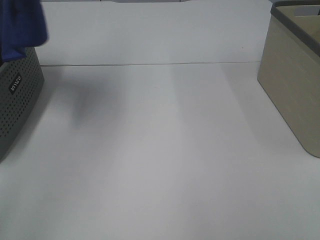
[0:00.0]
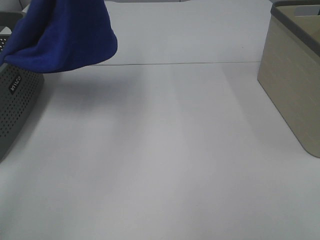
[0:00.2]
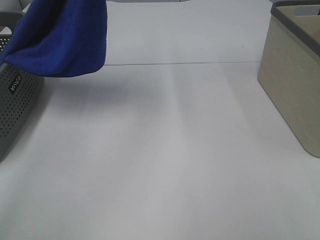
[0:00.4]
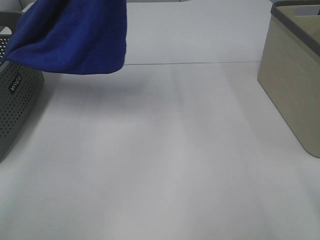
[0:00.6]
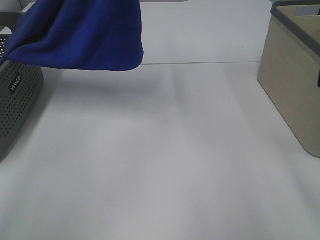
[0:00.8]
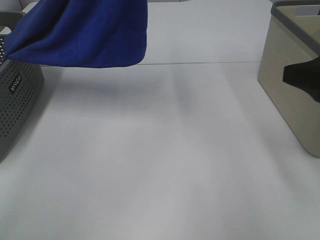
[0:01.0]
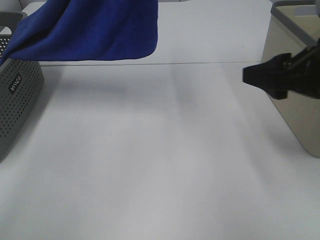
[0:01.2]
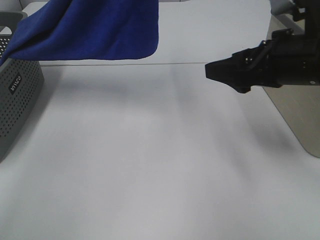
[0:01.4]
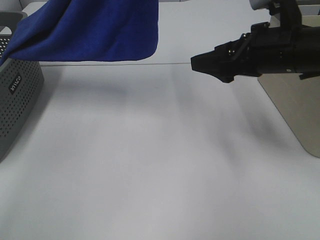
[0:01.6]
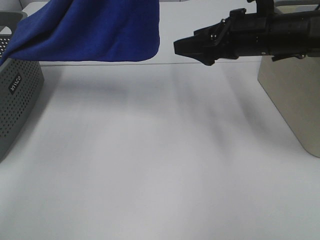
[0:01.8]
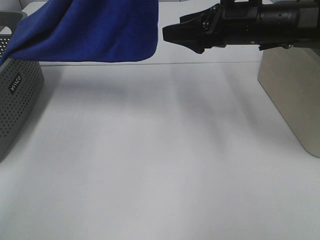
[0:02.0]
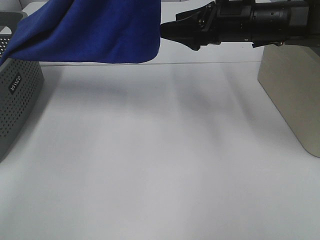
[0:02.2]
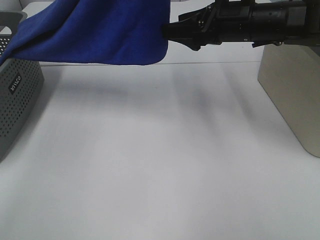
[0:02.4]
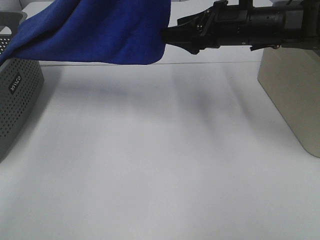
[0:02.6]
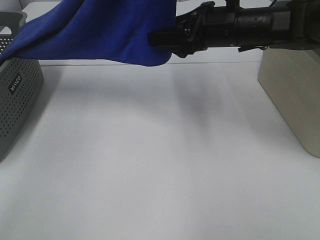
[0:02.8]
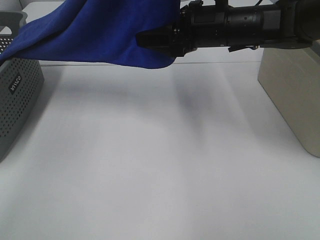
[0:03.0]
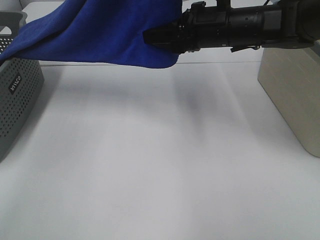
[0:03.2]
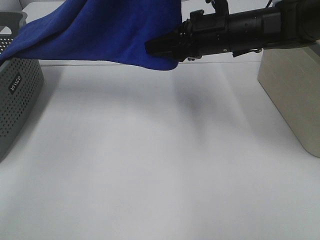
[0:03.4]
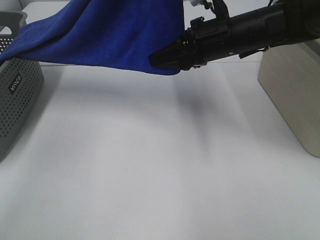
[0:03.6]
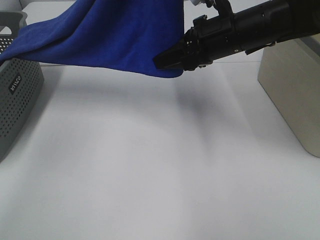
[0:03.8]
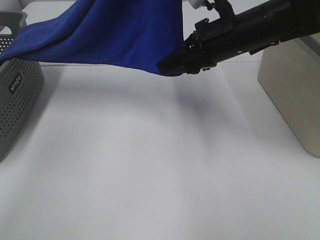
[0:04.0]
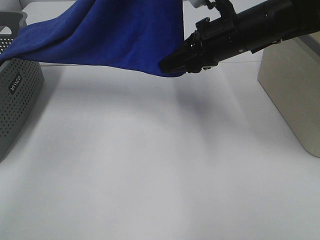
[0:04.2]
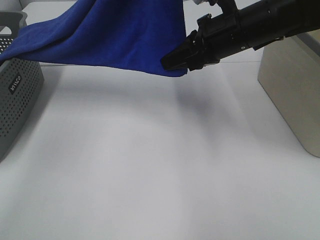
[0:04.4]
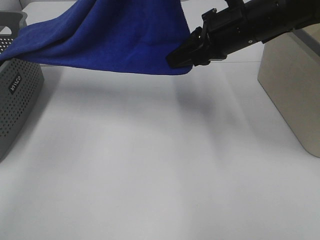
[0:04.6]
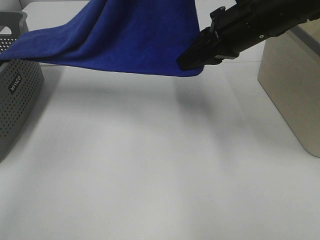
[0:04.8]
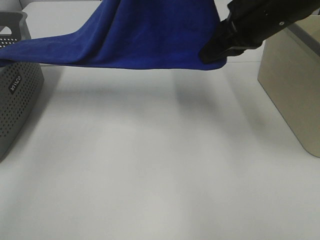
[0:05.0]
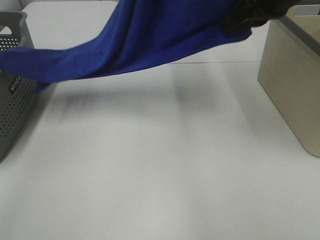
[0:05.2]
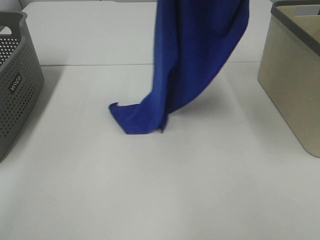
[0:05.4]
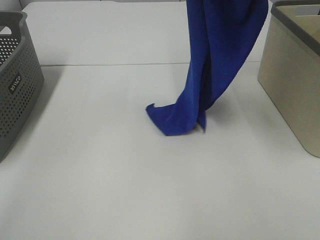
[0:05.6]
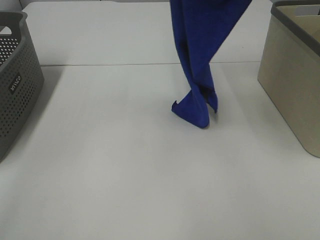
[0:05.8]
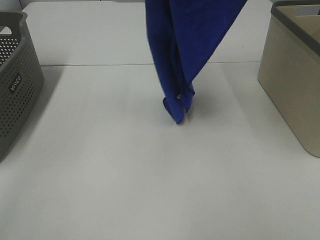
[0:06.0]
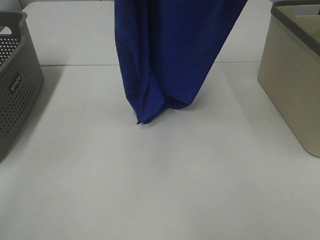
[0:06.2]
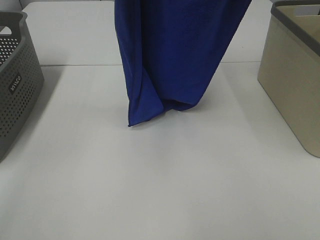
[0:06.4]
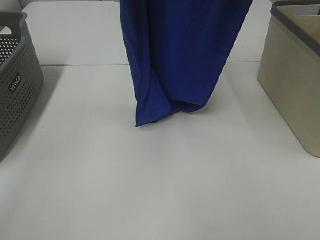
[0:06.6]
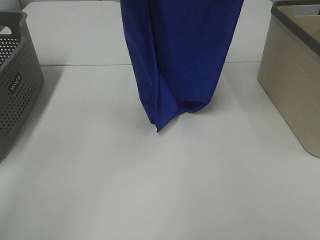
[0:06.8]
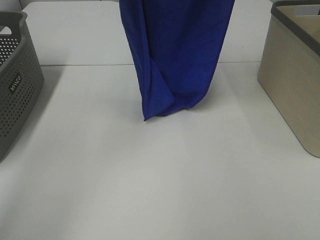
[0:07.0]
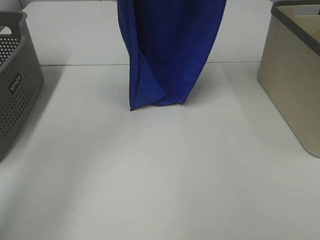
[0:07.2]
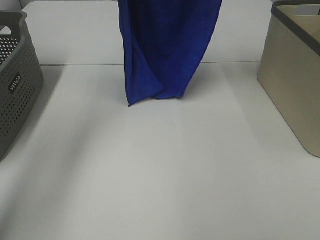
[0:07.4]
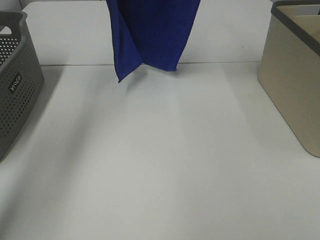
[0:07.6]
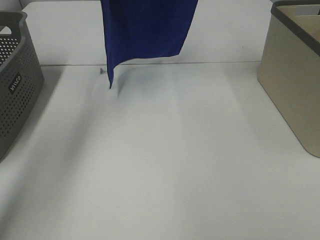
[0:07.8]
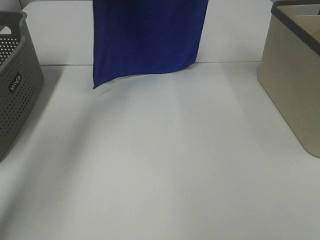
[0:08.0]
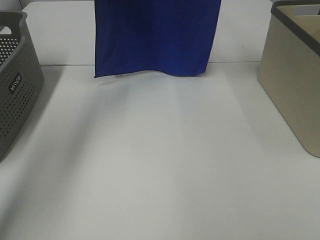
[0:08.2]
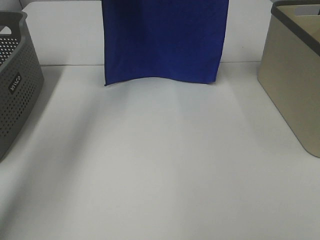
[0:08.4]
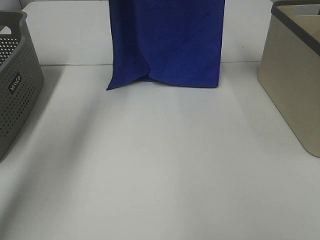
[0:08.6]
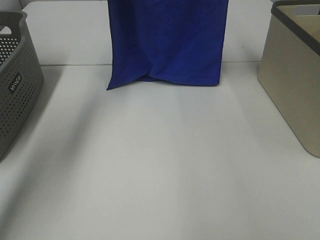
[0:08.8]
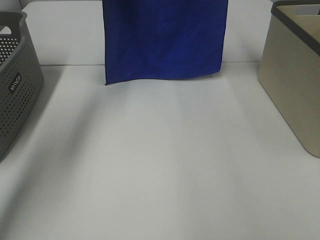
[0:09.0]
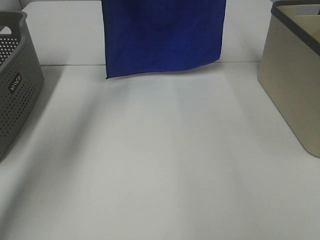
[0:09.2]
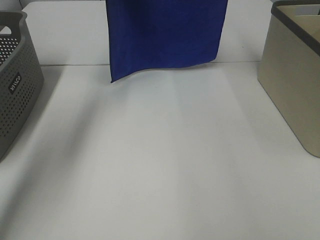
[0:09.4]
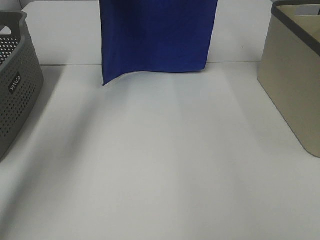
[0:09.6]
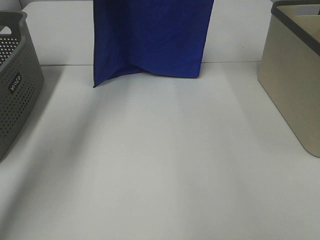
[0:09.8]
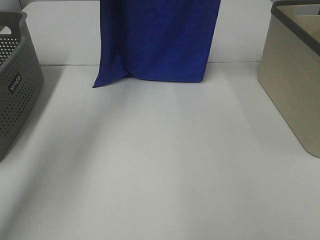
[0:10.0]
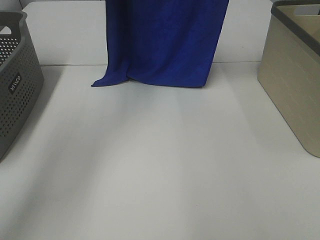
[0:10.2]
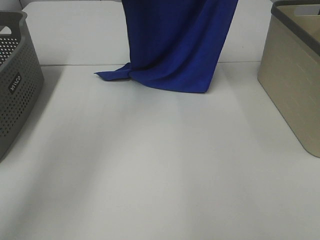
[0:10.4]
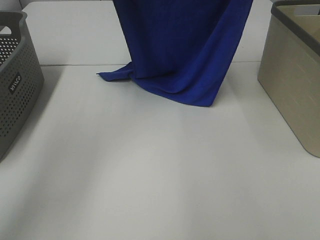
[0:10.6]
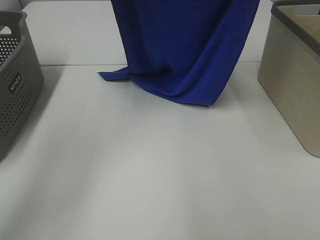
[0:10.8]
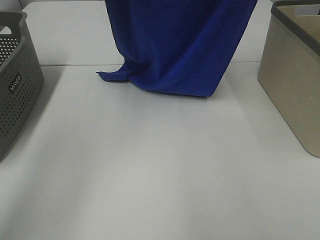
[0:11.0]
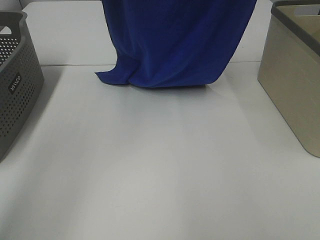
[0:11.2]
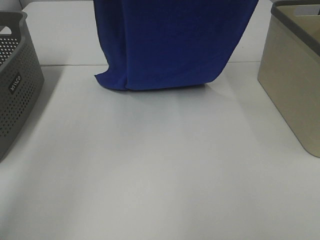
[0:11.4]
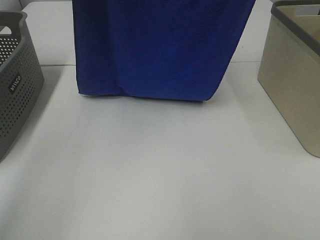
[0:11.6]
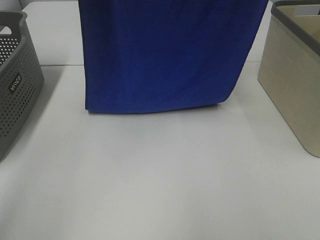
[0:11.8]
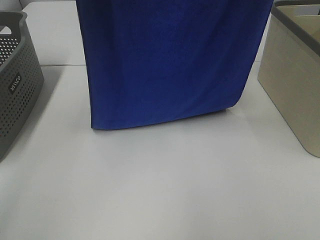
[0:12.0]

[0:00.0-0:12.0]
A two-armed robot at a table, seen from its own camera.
Task of the whole recording: Remove the towel and place it.
Step, 0.0 to 4.4 s: Right hand: grab a corner of the blue towel and straighten it.
Step, 4.6 to 11.4 s: Left hand: spread the blue towel flat on the table.
Step, 4.6 to 11.4 s: Right hand: spread the blue towel flat on the table.
0.0 to 1.6 s: The right gripper is displaced forward by some 30 cm, while the left gripper moves to the right, some 15 cm.
1.6 to 3.0 s: The right gripper travels forward and to the left by approximately 10 cm.
3.0 to 4.4 s: The right gripper closes.
4.4 to 6.0 s: The left gripper heads upward, covering some 5 cm; the right gripper travels upward by some 25 cm.
6.0 to 7.6 s: The left gripper heads forward and to the left, covering about 15 cm. The right gripper travels forward by some 15 cm.
7.6 to 9.0 s: The left gripper goes roughly 5 cm downward.
9.0 to 10.4 s: The left gripper ends up roughly 5 cm from where it was. Meanwhile the right gripper ends up roughly 5 cm from where it was.
10.4 to 12.0 s: The left gripper travels backward and upward by some 20 cm. Meanwhile the right gripper heads backward, covering some 15 cm.

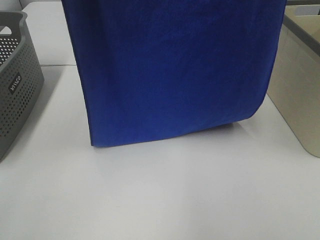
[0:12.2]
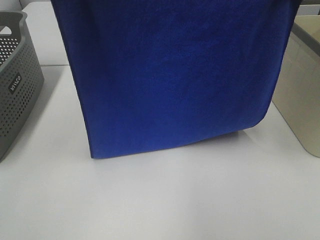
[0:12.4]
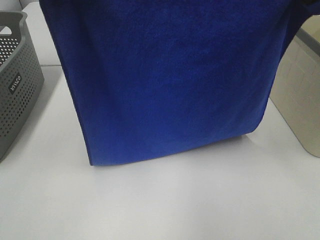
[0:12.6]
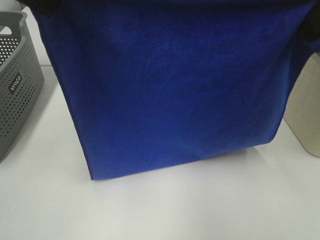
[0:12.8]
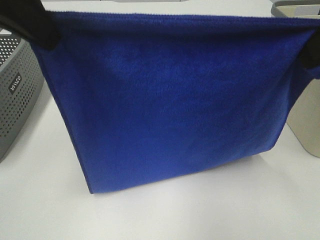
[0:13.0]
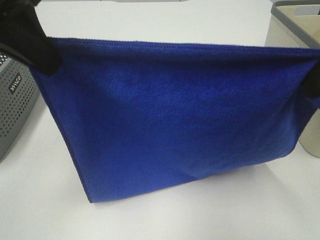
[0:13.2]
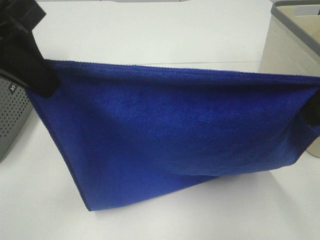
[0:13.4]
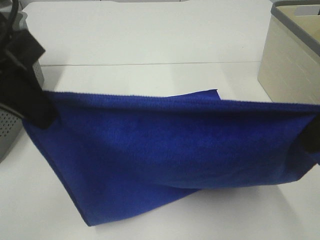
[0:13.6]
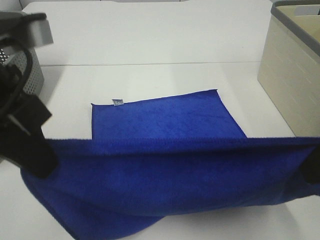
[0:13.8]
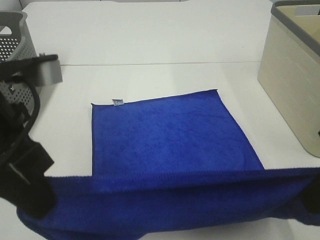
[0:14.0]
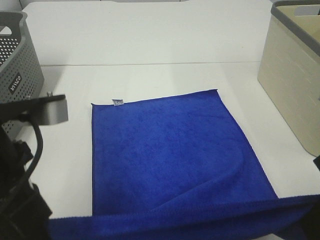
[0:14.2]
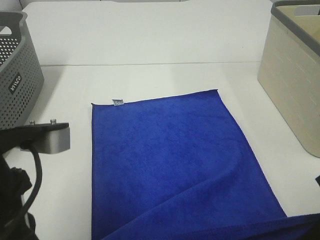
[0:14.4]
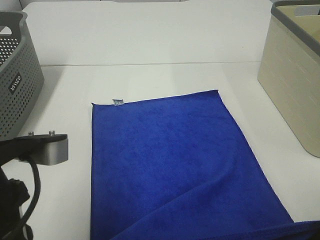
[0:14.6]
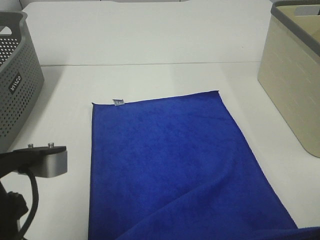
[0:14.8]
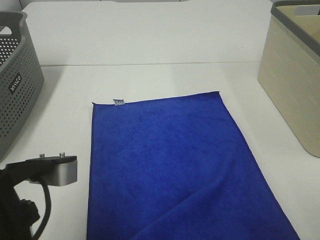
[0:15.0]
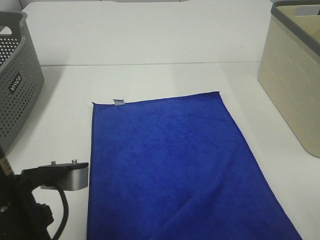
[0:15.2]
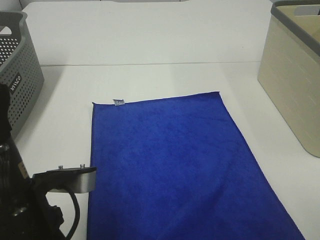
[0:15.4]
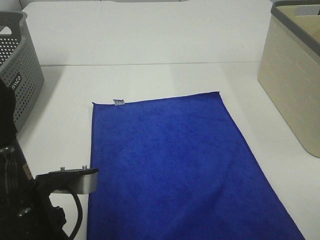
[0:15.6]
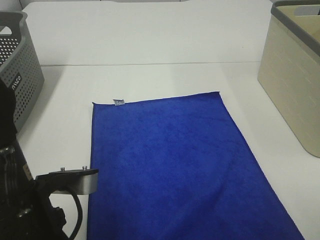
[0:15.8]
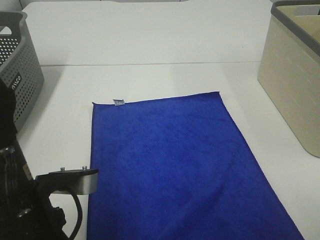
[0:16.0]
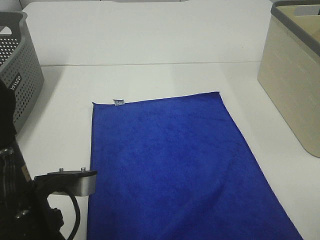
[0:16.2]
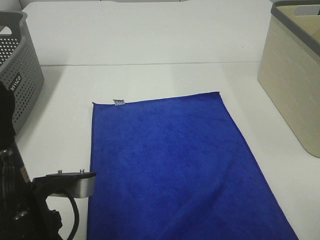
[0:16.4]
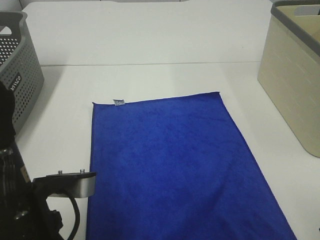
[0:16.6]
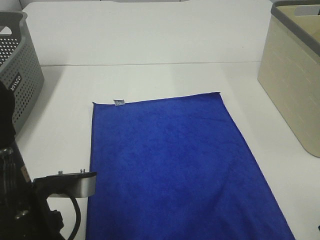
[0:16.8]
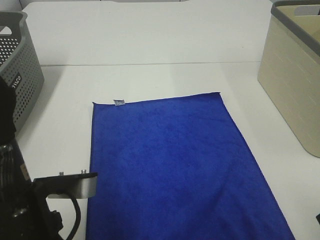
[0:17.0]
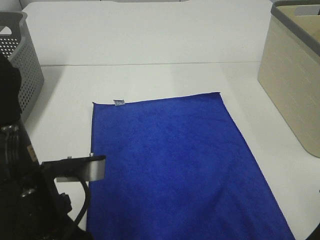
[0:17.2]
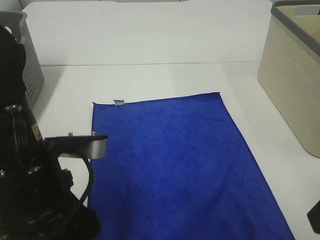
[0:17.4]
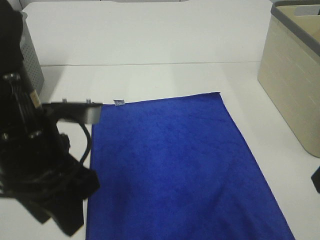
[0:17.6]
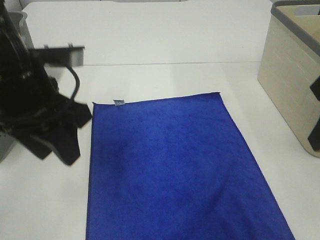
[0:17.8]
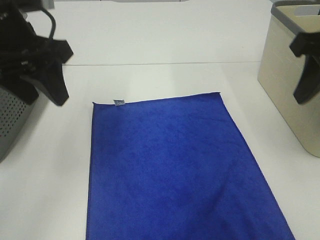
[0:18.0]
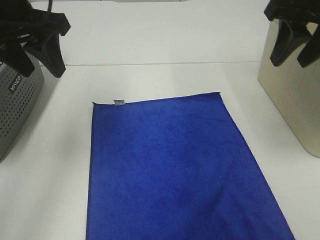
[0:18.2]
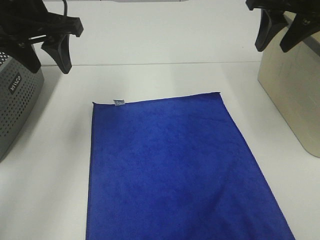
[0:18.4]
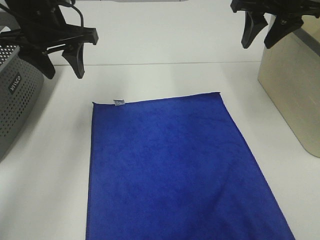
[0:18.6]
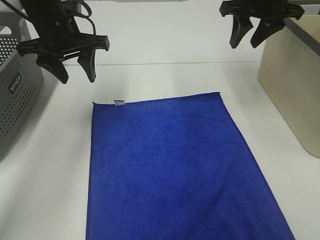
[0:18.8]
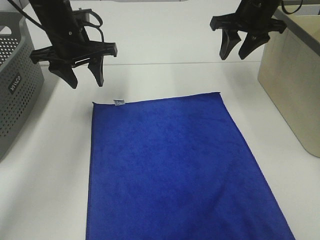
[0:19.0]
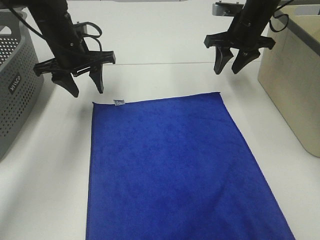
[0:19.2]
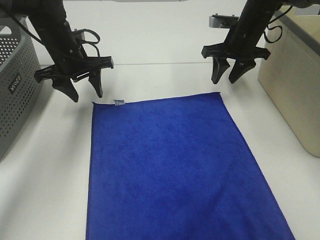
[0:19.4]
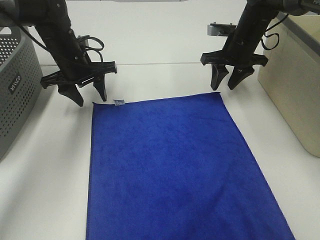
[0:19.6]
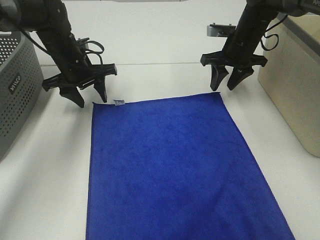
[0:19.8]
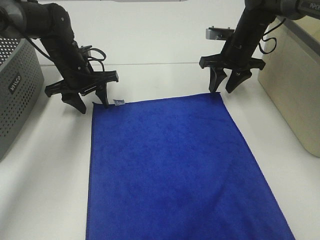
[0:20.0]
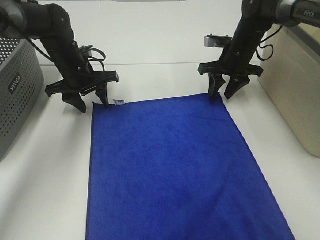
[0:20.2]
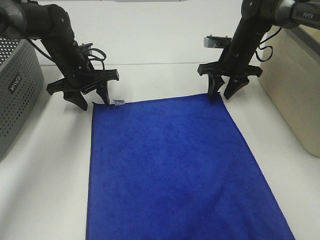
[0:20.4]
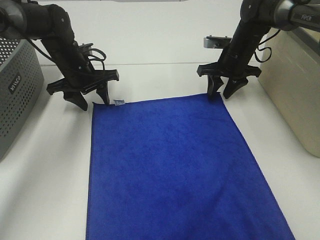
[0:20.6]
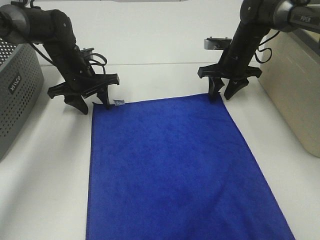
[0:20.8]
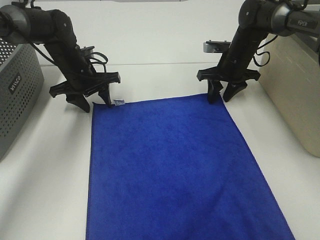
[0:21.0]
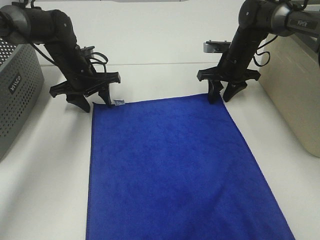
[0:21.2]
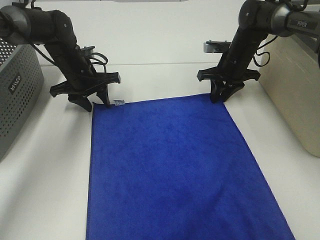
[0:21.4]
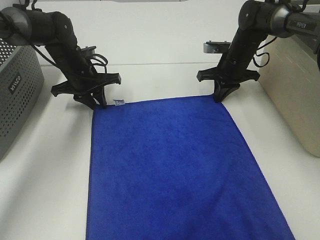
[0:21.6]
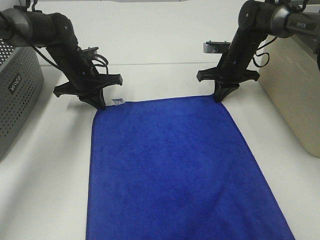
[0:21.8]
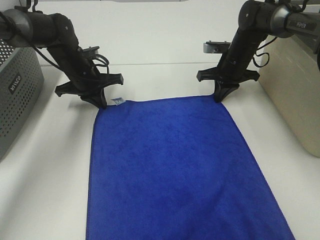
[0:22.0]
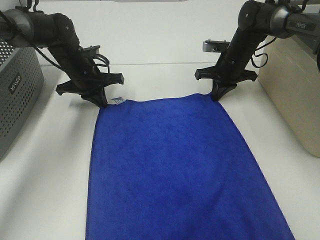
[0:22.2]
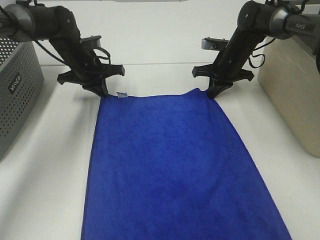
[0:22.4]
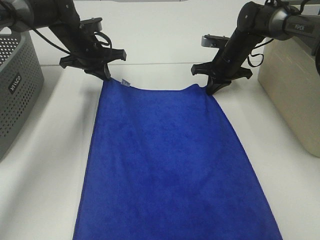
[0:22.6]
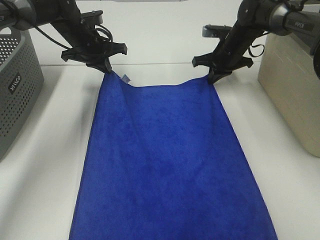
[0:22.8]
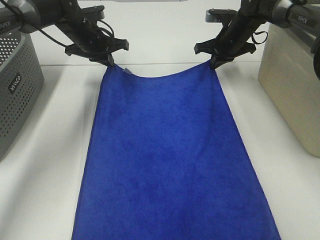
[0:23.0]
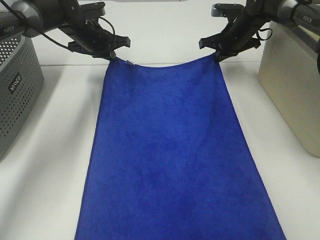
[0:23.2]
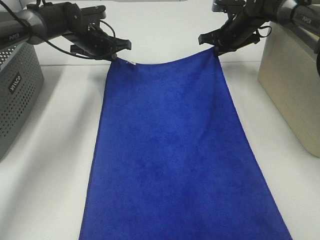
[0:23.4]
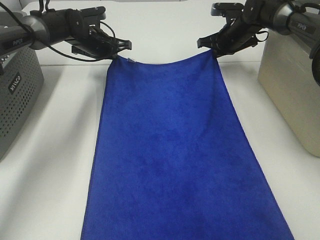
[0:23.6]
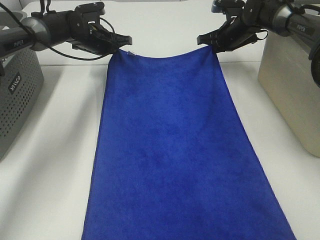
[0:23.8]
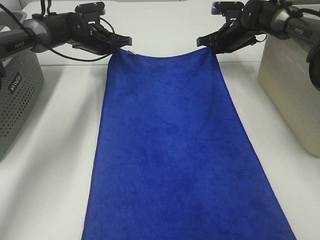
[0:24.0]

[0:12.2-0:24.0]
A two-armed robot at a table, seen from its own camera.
Task of the whole recording: Remove the towel and place it.
Step, 12.2 to 19.2 s: Left hand:adjust the blue towel.
Step, 12.2 to 19.4 s: Right hand:adjust the blue towel.
12.2 to 13.6 s: The two grippers go roughly 15 cm downward and backward.
13.6 to 15.2 s: Both grippers travel together downward and backward, roughly 15 cm.
15.2 to 16.6 s: The left gripper opens.
16.6 to 18.2 s: Both grippers travel together forward and upward, about 25 cm.
18.2 to 19.6 s: The right gripper goes about 25 cm forward and downward; the left gripper travels downward and forward by approximately 20 cm.
19.6 to 21.0 s: The right gripper moves roughly 5 cm.
21.0 to 22.6 s: The left gripper shifts by about 5 cm, and closes. Meanwhile the right gripper closes its fingers.
22.6 to 24.0 s: Both grippers travel together forward, roughly 5 cm.
